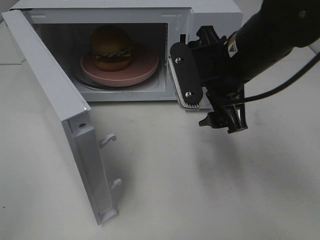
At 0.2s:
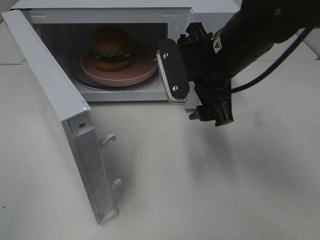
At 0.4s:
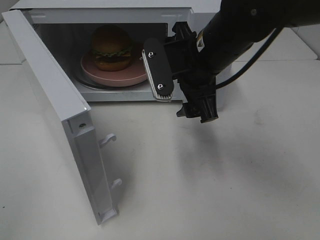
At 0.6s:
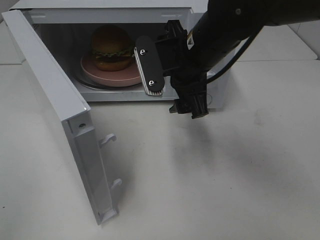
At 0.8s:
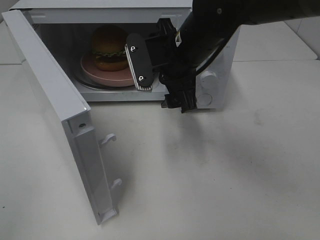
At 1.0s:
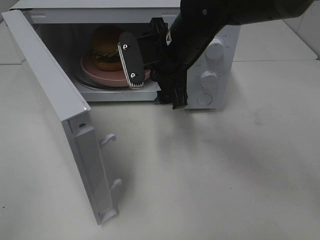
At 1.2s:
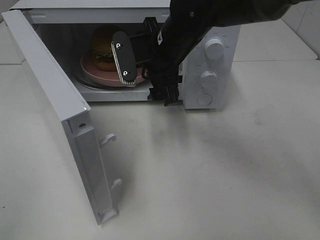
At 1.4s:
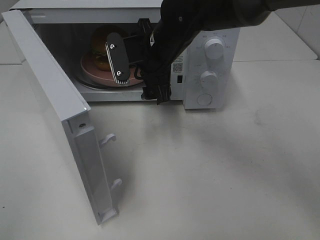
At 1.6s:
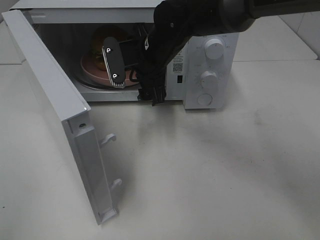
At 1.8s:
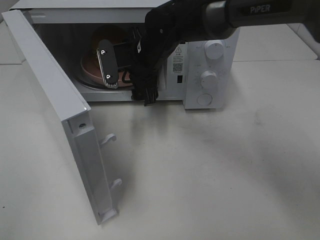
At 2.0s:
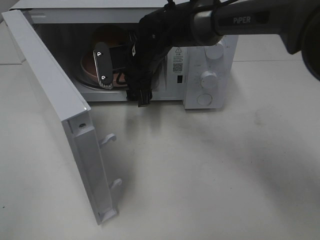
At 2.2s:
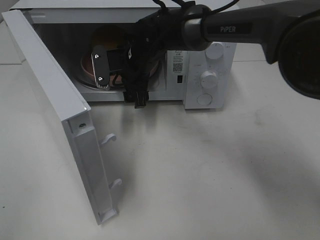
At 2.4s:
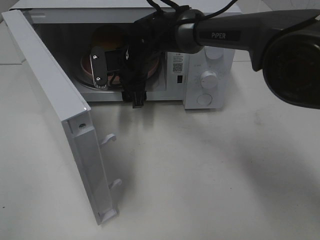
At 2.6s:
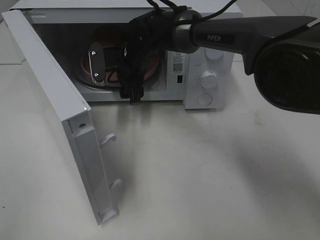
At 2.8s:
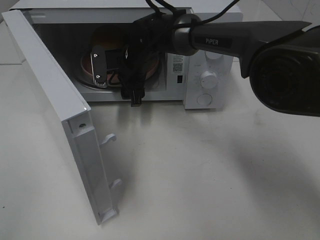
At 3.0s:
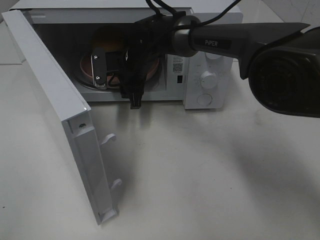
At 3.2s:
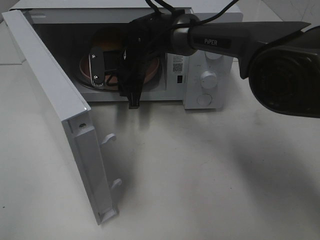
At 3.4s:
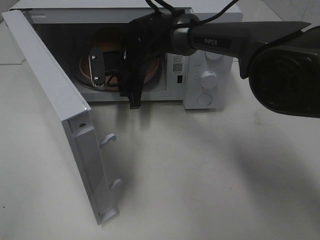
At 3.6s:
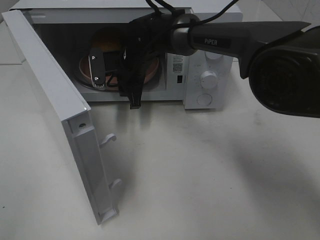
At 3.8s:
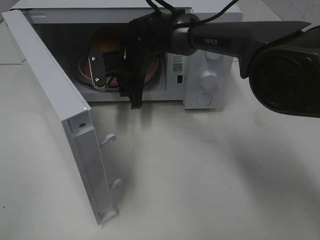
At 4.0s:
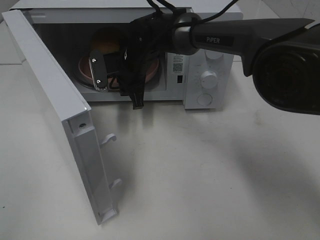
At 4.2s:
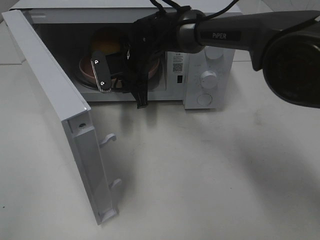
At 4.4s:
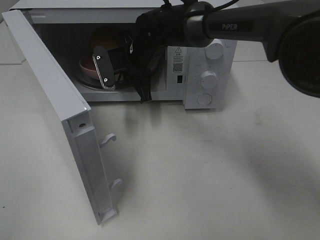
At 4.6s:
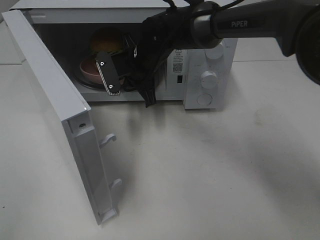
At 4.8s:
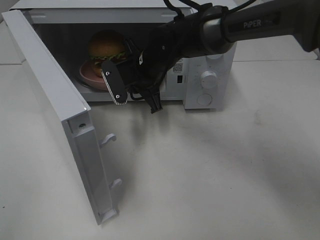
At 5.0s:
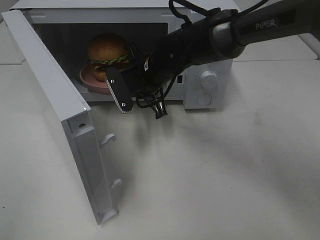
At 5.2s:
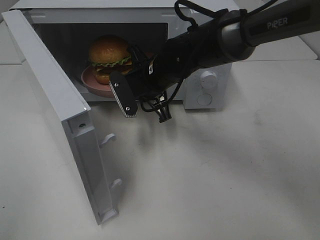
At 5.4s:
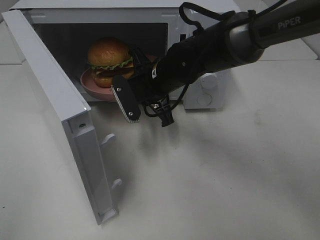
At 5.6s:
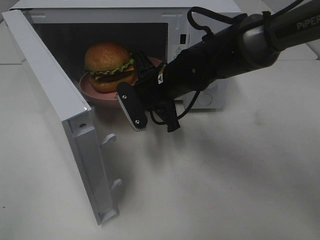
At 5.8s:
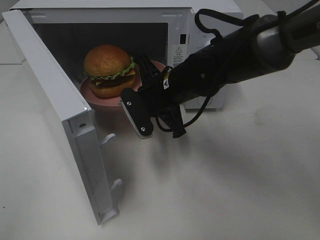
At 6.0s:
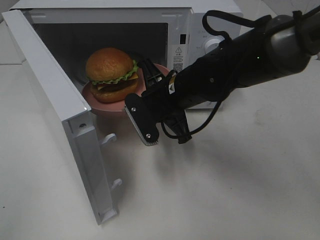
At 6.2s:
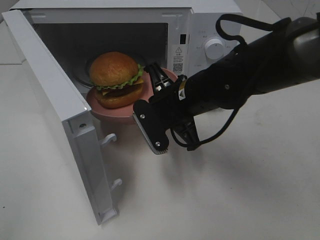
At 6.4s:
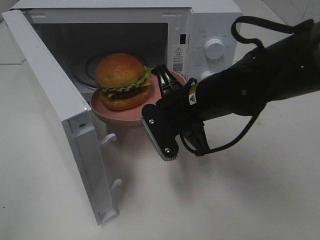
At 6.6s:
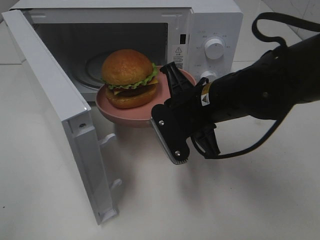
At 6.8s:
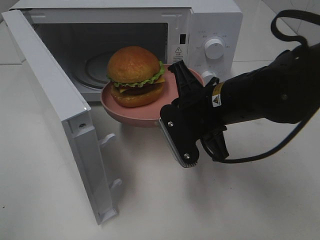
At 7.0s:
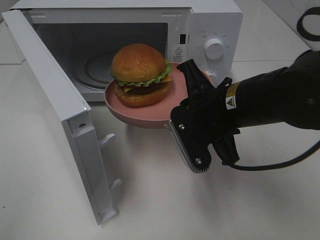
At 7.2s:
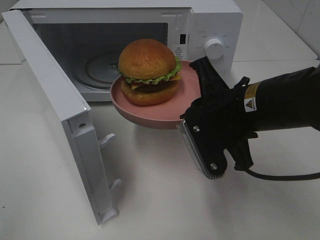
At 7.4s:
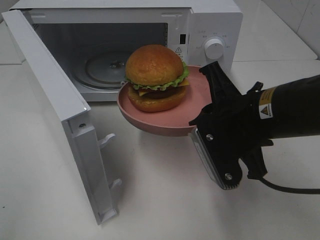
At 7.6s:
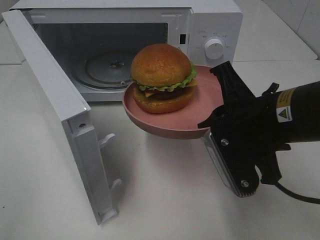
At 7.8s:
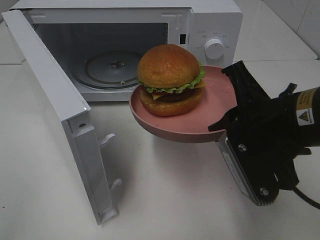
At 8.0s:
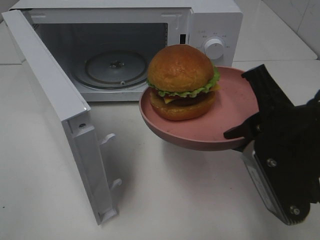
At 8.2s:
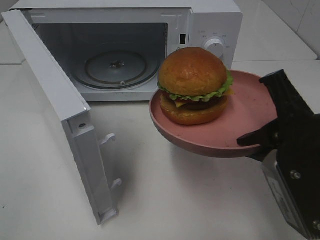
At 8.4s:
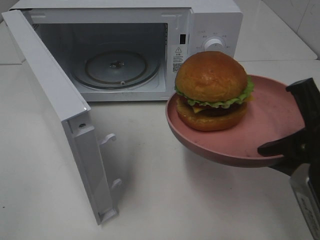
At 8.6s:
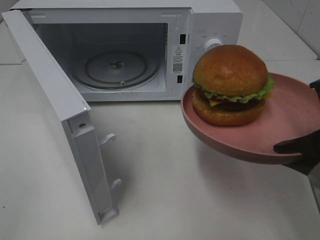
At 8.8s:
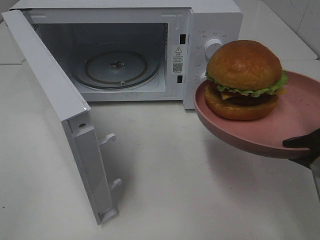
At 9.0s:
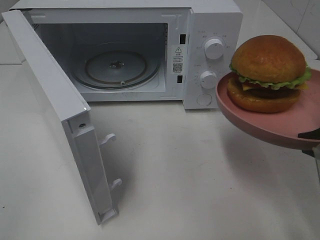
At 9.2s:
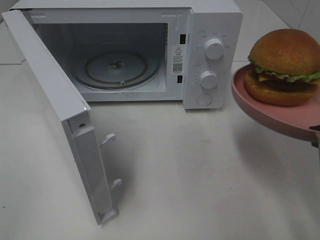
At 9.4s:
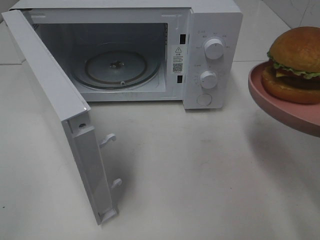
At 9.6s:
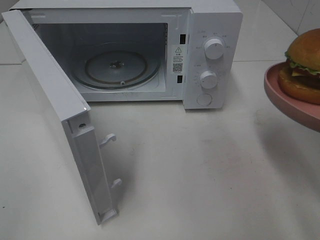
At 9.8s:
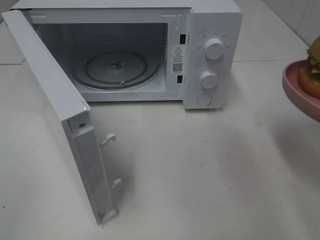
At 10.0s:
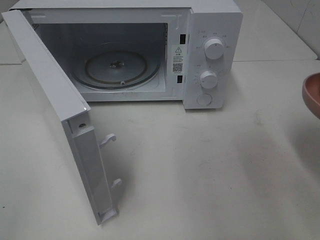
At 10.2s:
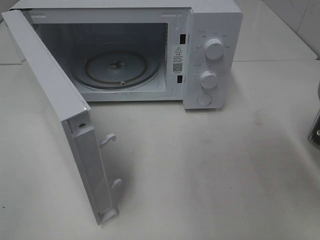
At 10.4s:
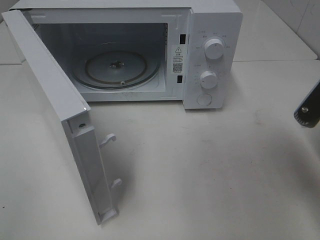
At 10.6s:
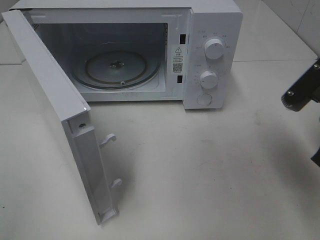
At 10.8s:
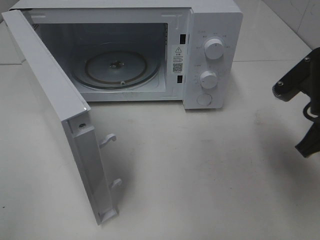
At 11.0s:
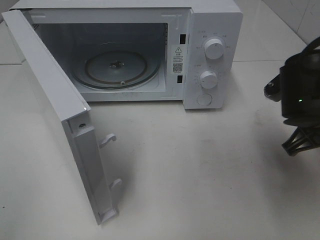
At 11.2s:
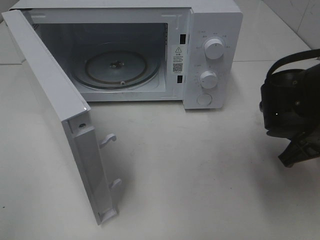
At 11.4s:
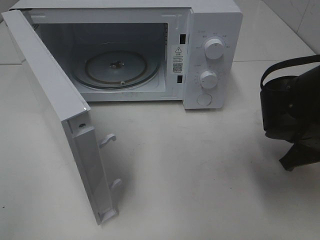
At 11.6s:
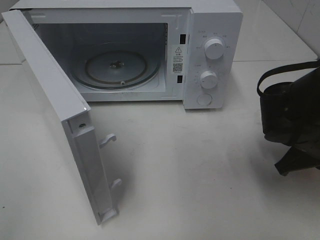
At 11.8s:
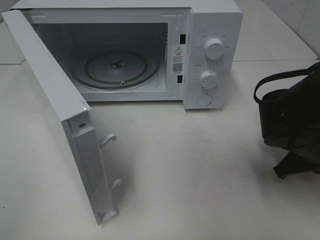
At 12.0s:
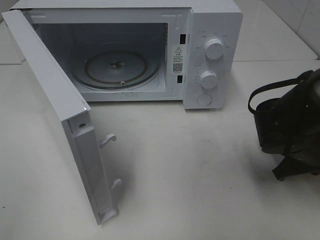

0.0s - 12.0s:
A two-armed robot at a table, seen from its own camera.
Task of the whole recording: Heat the burger.
Step, 0.0s - 4.2s: Right hand: grab the plate with the hamburger.
0.0s - 1.6s: The right gripper shifts roughly 15 cm forward and to the left.
1.6s - 3.0s: The right gripper shifts approximately 10 cm forward and downward, and closes.
3.0s - 4.4s: The grippers stay close to where they were, moving slightly.
4.4s - 6.0s: The right gripper moves backward and to the right, approximately 15 cm.
6.0s - 7.6s: The right gripper heads backward, to the right and upward, covering approximately 15 cm.
7.6s - 9.0s: The right gripper moves to the right and backward, about 10 cm.
9.0s - 10.4s: The right gripper travels forward by approximately 5 cm.
10.4s - 12.0s: The right gripper heads downward and forward, covering about 15 cm.

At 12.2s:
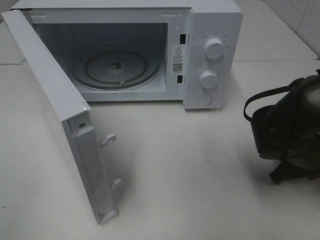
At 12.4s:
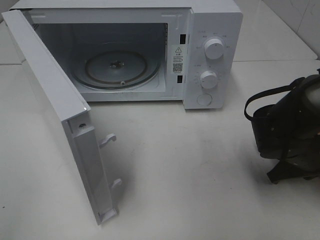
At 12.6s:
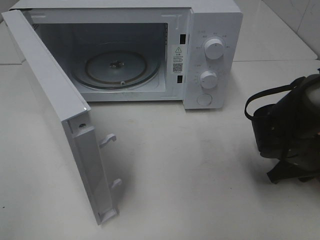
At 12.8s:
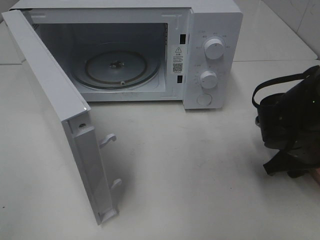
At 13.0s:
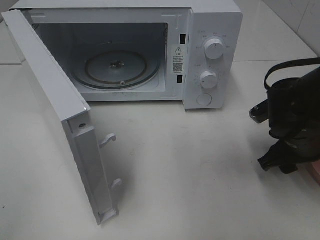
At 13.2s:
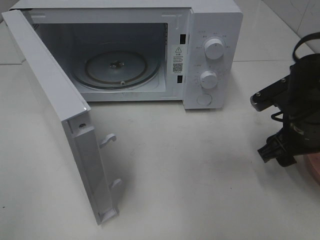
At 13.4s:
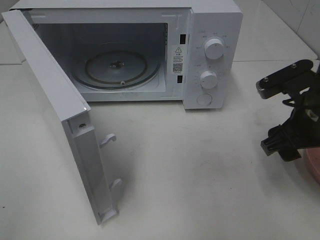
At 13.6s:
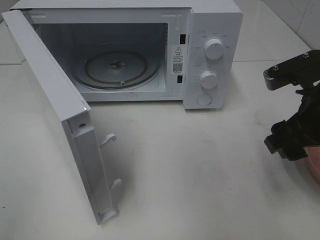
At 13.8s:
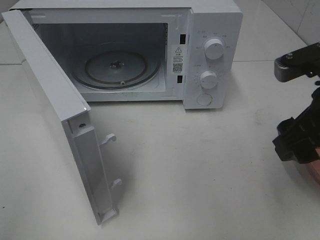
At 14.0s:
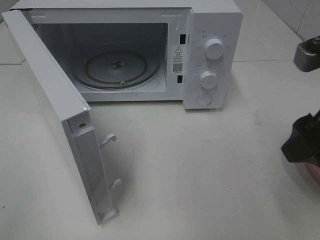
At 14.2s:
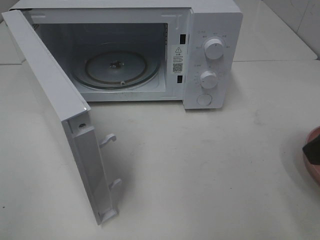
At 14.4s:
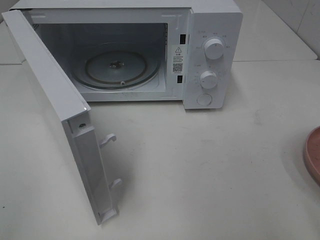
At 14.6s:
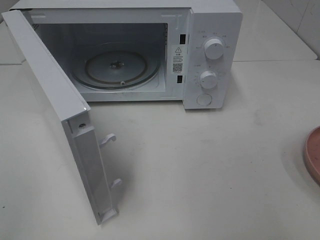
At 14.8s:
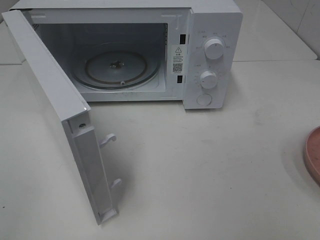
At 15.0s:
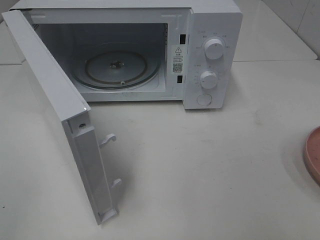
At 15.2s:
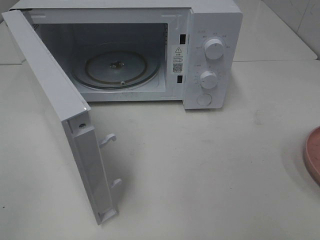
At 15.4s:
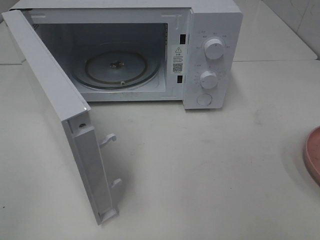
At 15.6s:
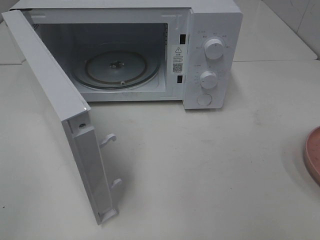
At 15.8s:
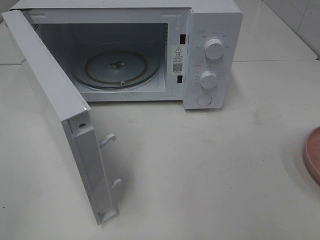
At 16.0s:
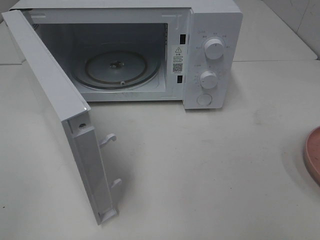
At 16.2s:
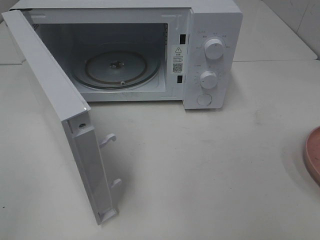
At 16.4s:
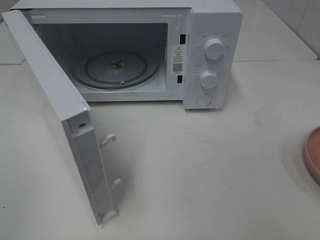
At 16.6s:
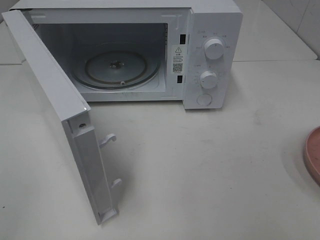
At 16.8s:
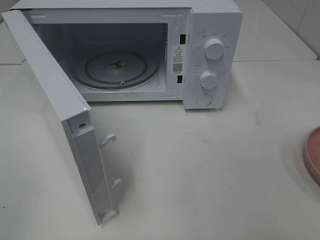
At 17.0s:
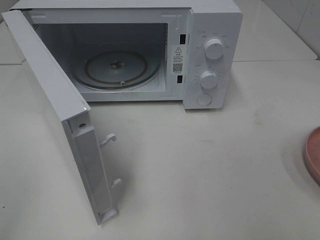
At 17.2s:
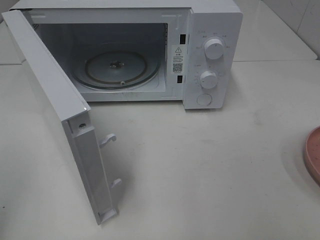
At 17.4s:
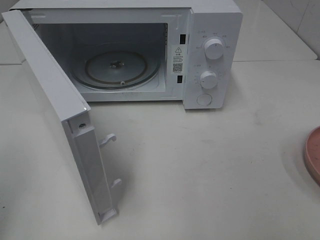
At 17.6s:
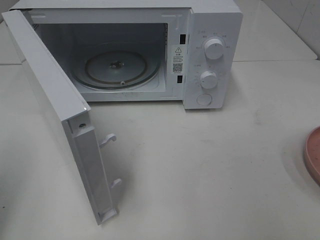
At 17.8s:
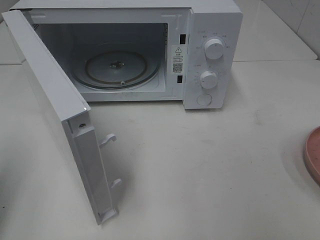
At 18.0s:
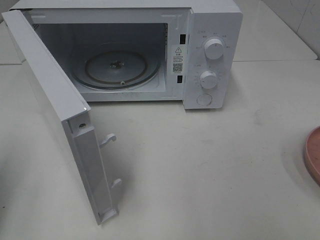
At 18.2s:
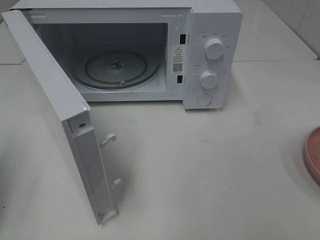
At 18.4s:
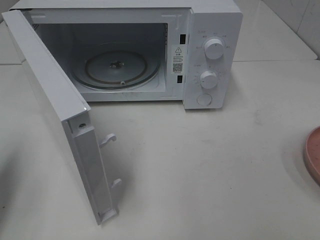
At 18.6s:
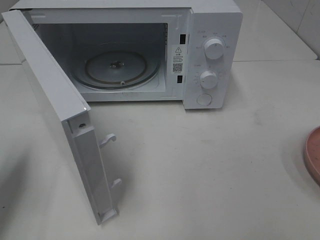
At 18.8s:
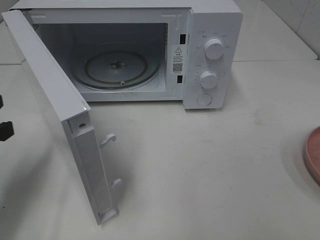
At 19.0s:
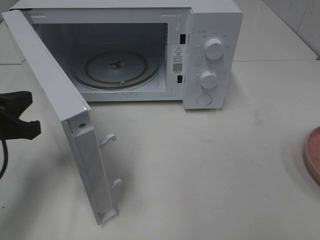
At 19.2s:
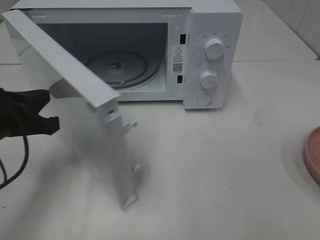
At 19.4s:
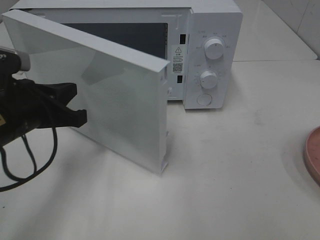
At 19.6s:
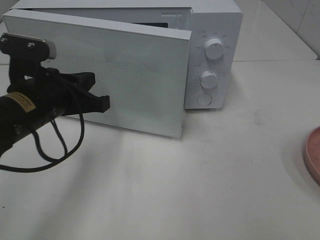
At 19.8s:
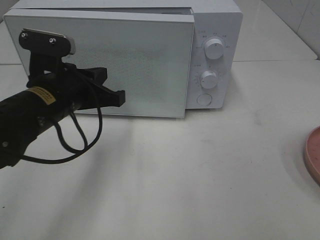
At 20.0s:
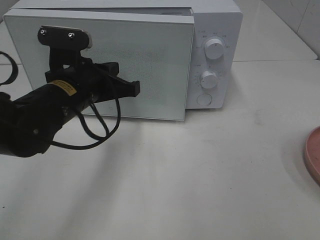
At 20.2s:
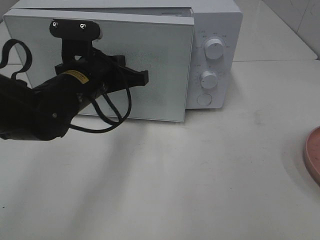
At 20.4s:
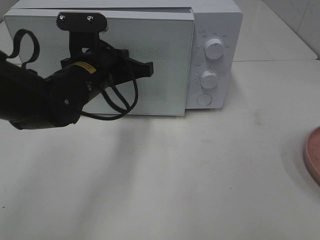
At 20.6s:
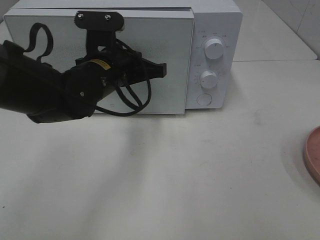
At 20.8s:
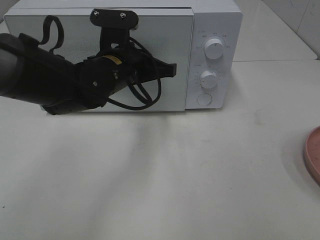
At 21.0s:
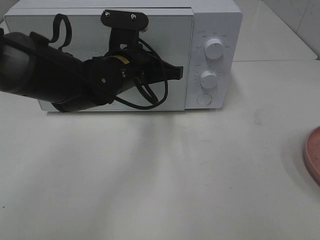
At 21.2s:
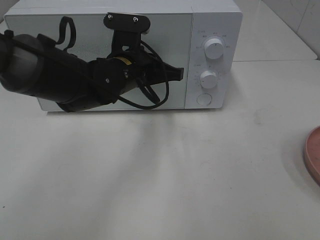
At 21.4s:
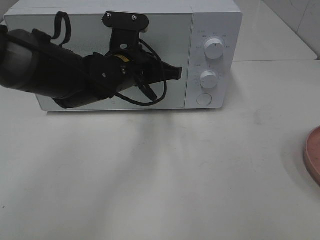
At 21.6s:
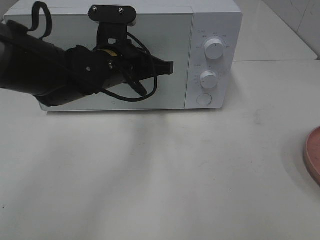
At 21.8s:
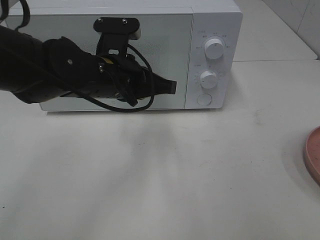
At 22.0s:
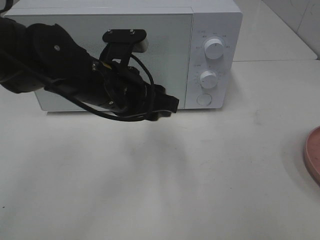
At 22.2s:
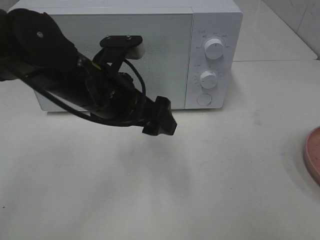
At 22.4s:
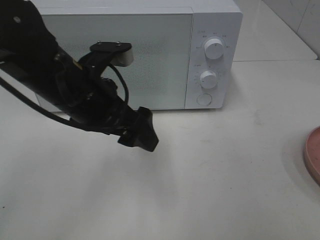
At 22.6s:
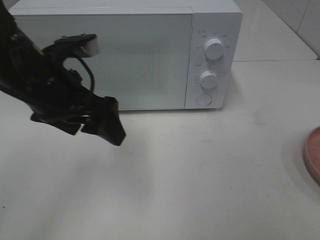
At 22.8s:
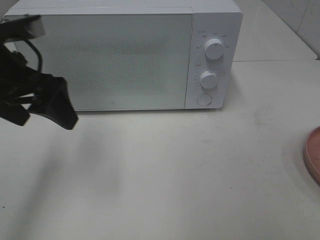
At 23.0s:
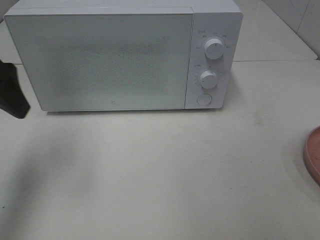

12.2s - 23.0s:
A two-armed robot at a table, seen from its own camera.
Task of the whole recording: Heat the burger.
Step, 13.4s - 22.0s: Left hand: close the microwave door.
12.2s - 13.8s: The right gripper heads upward, covering some 15 cm, and opens its fingers.
13.8s - 15.2s: The right gripper heads backward and to the right, covering roughly 20 cm.
15.2s - 16.8s: The two grippers keep their place.
16.8s - 18.4s: The left gripper moves forward and downward, some 20 cm, and closes.
18.4s - 20.0s: The left gripper goes about 25 cm to the right and forward.
20.0s - 21.4s: The left gripper goes some 10 cm to the right and forward.
21.4s - 23.0s: The left gripper goes some 25 cm to the left, upward and backward, and opens.
